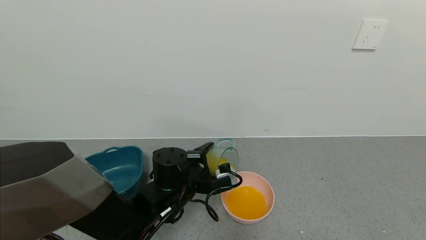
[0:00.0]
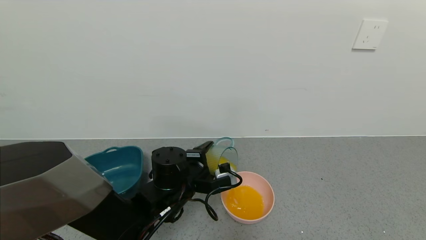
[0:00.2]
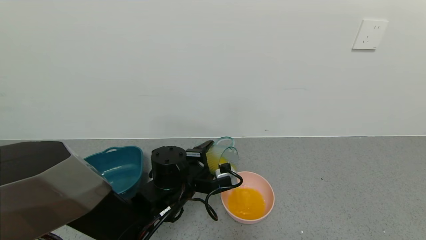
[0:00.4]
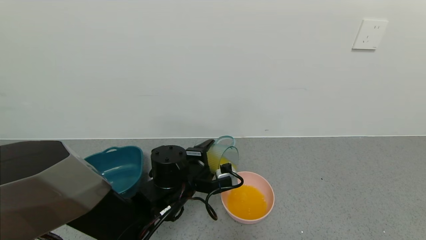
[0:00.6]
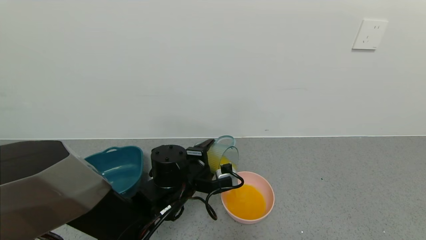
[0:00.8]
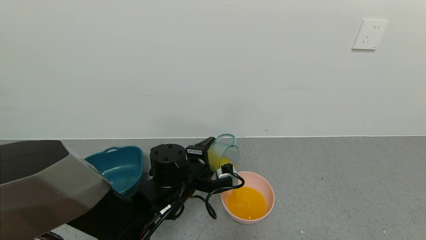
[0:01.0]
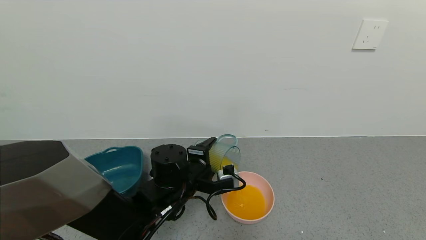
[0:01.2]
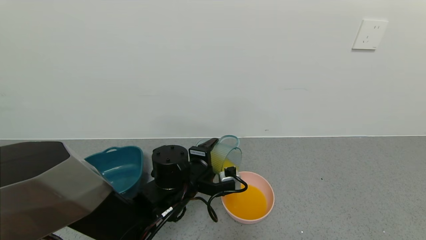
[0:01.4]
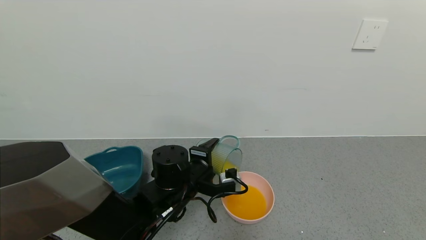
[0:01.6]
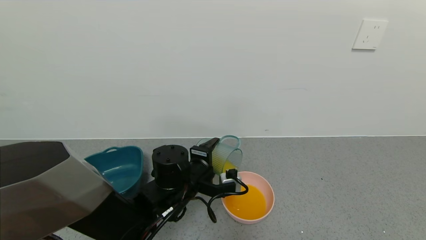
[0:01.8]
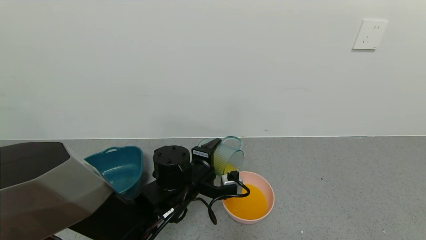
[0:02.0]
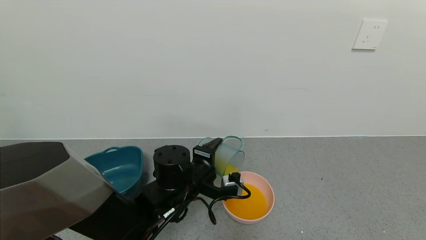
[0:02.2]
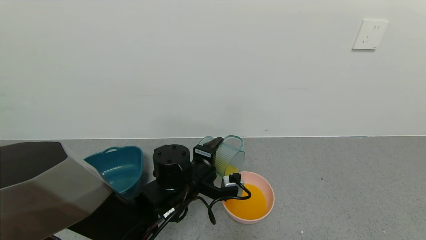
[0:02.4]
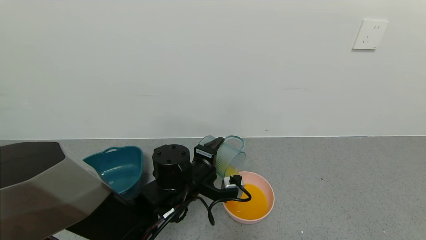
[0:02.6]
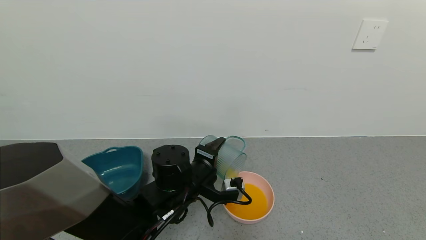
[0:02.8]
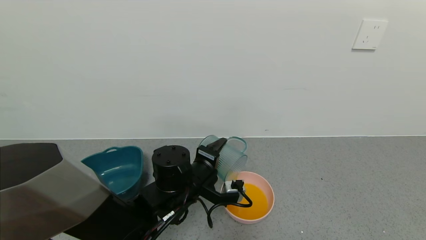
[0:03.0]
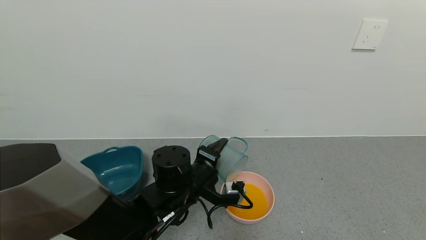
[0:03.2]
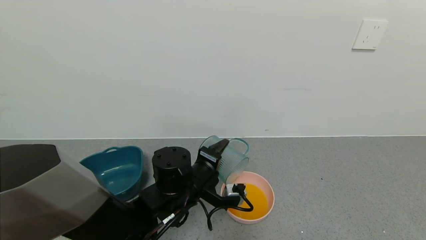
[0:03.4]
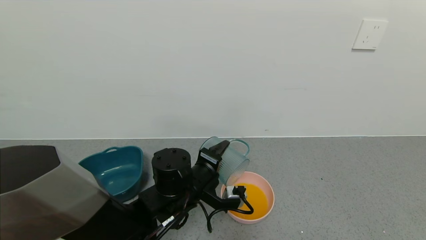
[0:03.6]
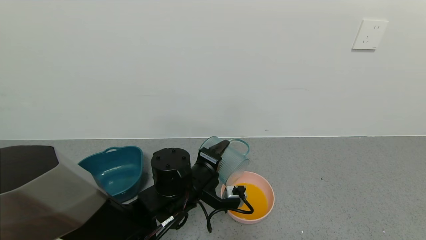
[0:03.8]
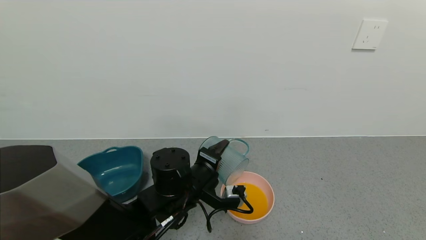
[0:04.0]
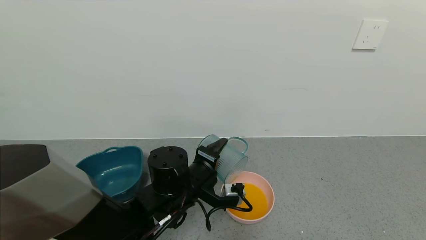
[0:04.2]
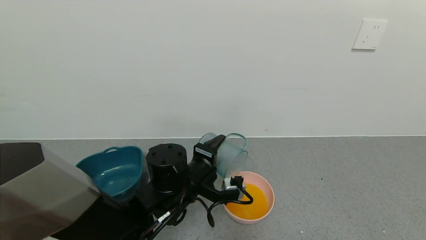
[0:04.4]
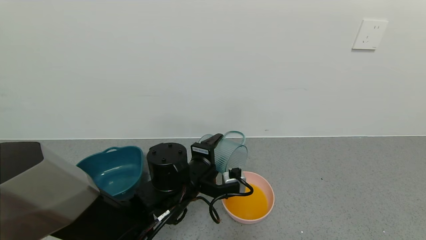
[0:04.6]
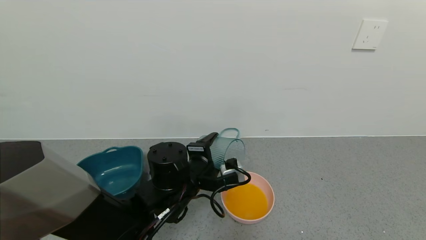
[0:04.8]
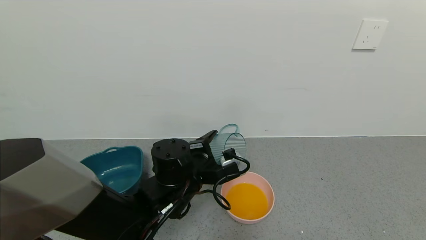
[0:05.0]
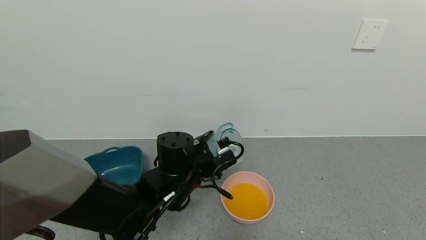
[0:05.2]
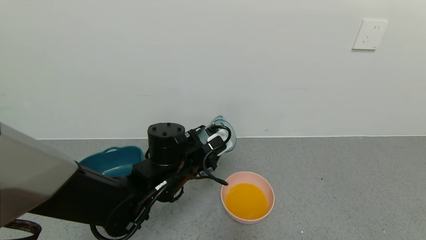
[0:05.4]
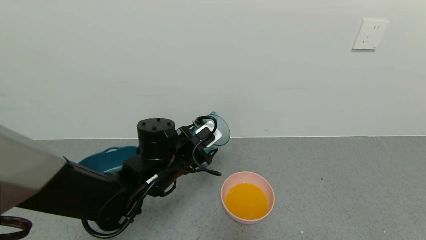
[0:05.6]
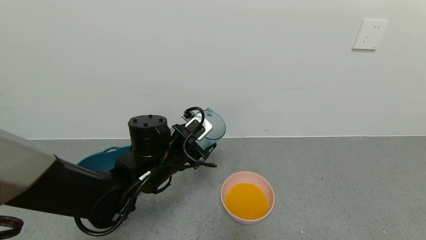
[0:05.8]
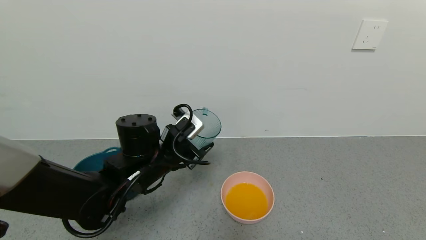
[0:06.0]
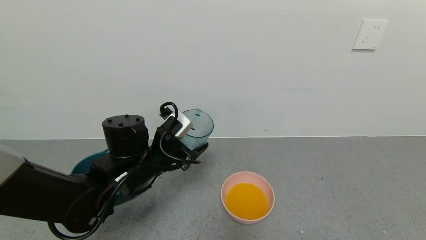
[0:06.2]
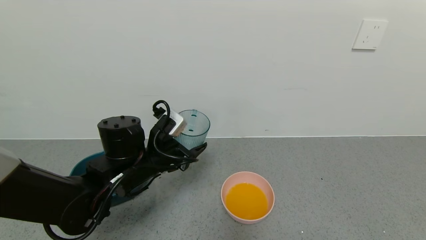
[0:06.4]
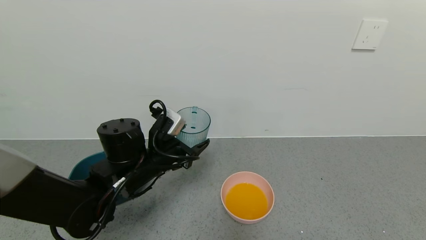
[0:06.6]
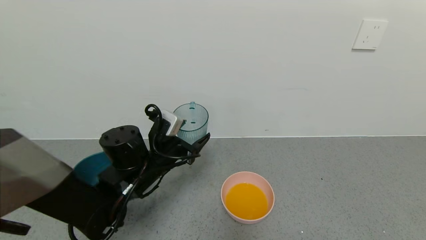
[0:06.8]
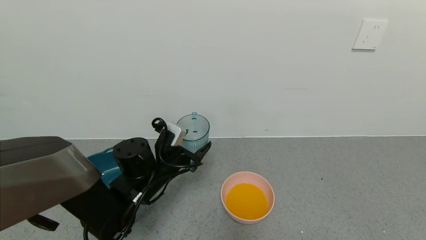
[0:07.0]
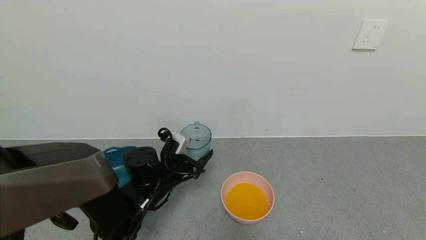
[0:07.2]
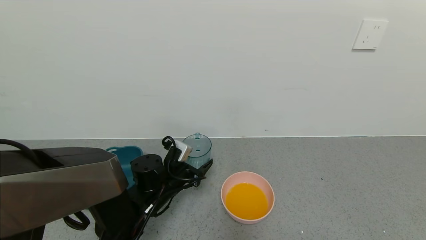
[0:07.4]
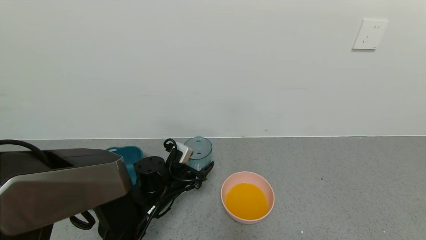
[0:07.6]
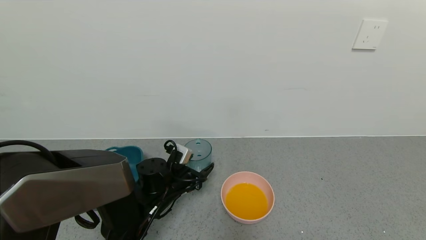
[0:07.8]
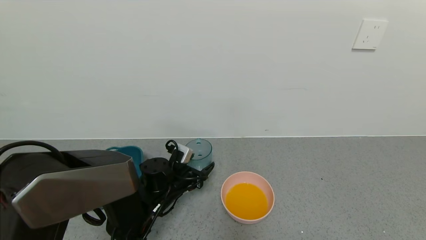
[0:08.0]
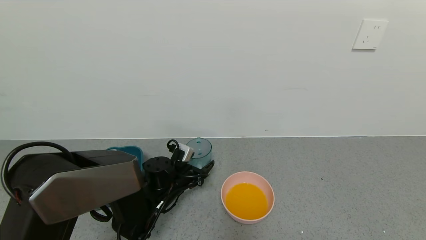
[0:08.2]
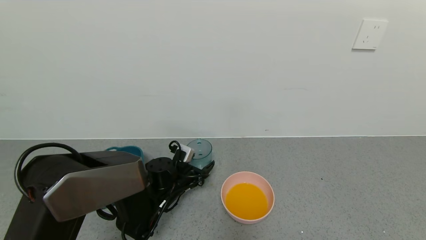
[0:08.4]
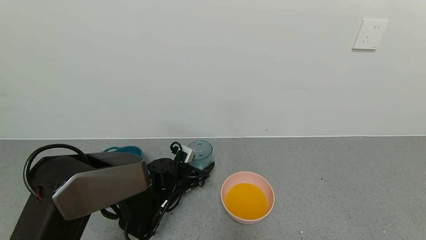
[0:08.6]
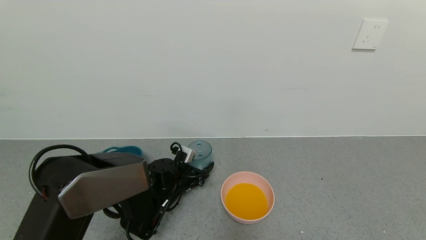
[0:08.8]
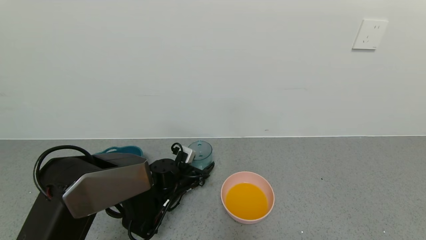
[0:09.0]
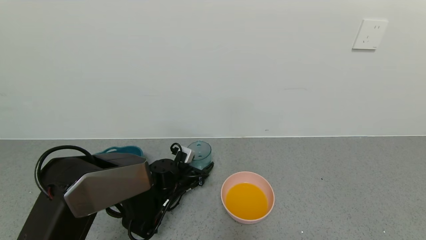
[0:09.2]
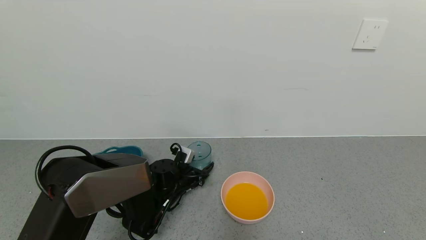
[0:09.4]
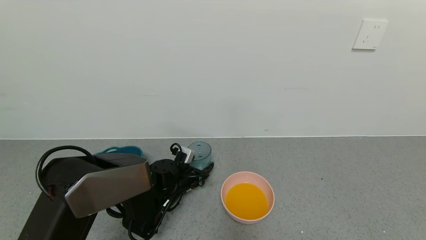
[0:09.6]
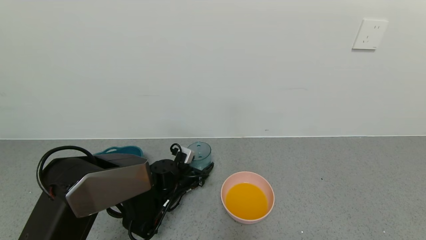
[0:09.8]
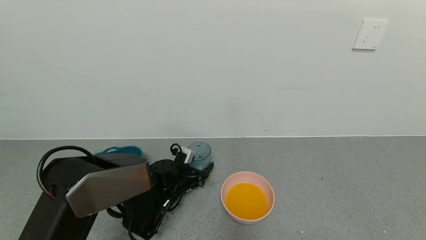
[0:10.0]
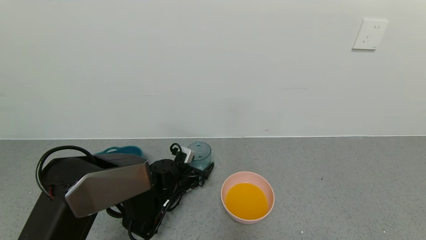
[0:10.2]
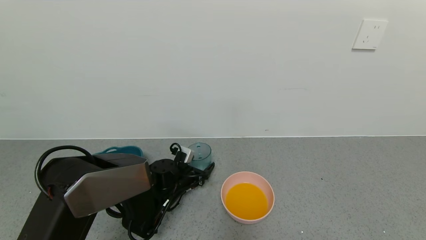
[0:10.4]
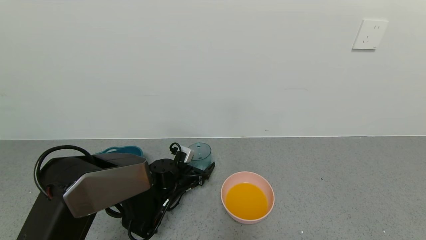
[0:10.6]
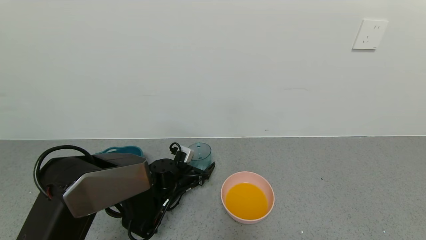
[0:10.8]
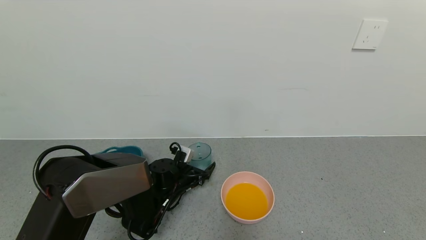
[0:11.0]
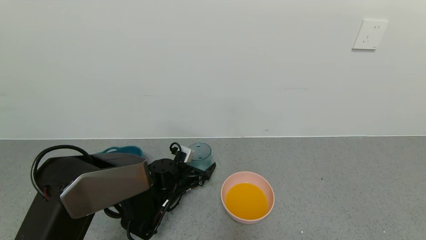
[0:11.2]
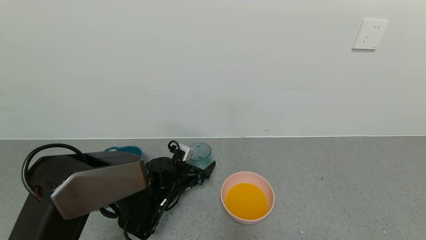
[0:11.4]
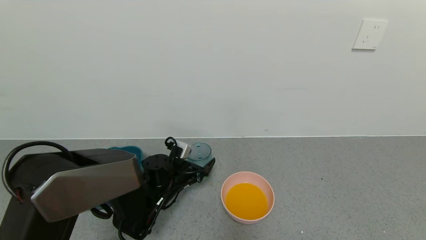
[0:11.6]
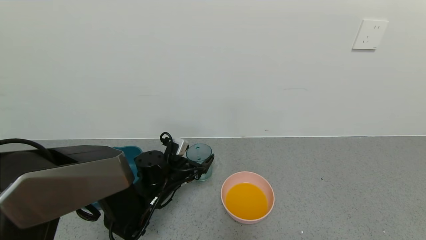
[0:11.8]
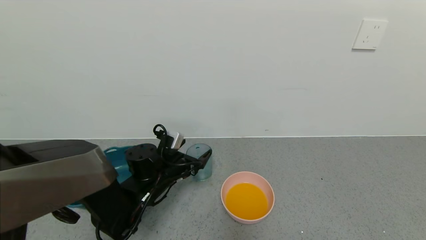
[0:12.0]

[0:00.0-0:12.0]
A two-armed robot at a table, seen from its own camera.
Task of the whole recording: use a gripper to pick up the cup and pour the liquid into a bowl or tray.
Step, 0:00.0 to 0:04.4: Pour the orange juice into the blue basin with left gripper.
Step, 0:04.6 to 0:11.0: Place blue cup with orange juice on the table with left gripper.
0:00.0 to 0:01.6: The grippers stay close to where they were, moving slightly.
0:01.6 to 0:03.0: The grippers move only a little.
0:03.0 to 0:04.4: Neither gripper changes place.
0:04.4 to 0:06.0: The left gripper goes some 5 cm to the left.
0:06.0 to 0:07.6: The left gripper is displaced downward by some 10 cm.
0:07.6 to 0:09.0: The left gripper shifts by roughly 5 cm.
0:10.4 to 0:12.0: The left gripper is displaced upward by some 10 cm, and opens up.

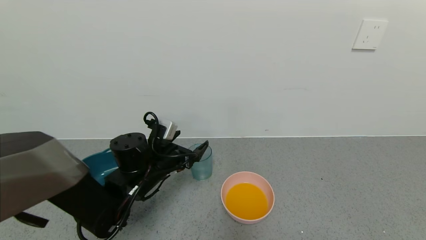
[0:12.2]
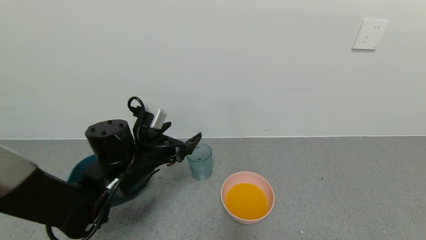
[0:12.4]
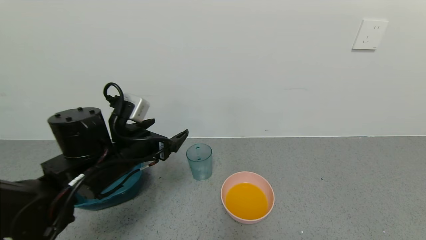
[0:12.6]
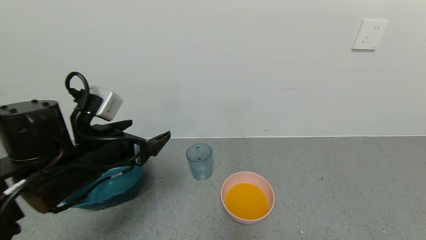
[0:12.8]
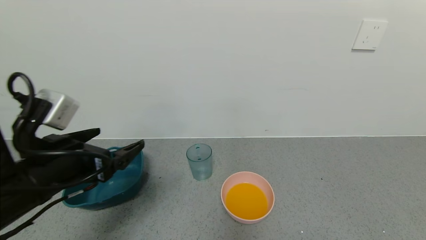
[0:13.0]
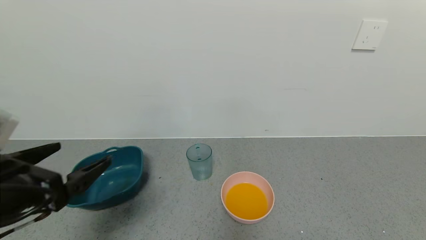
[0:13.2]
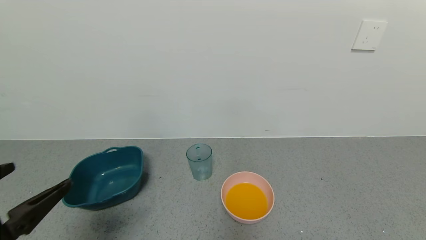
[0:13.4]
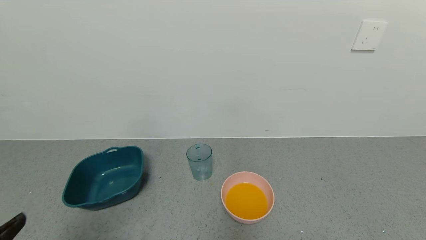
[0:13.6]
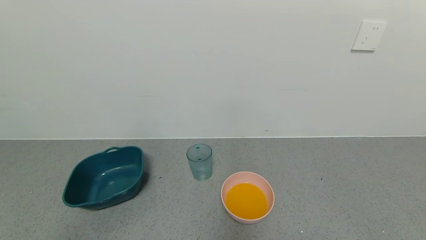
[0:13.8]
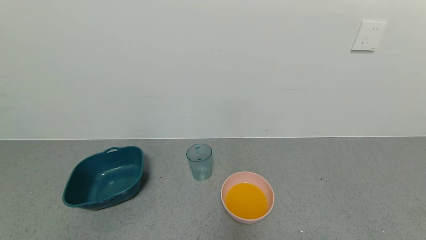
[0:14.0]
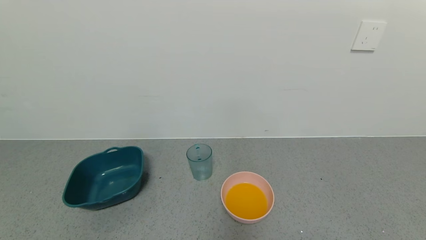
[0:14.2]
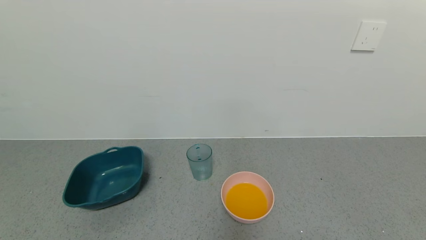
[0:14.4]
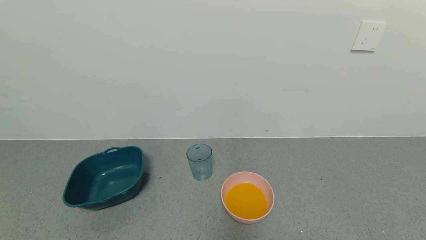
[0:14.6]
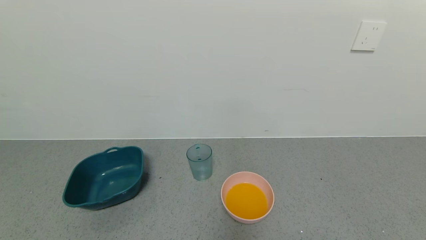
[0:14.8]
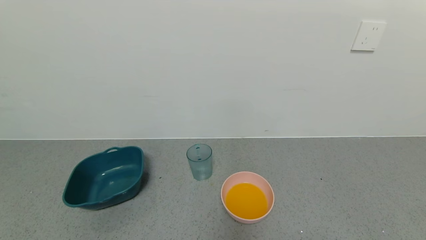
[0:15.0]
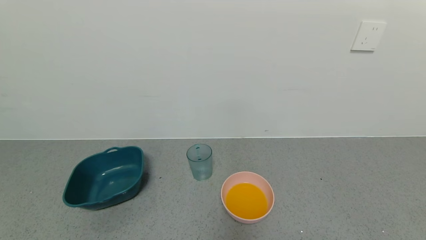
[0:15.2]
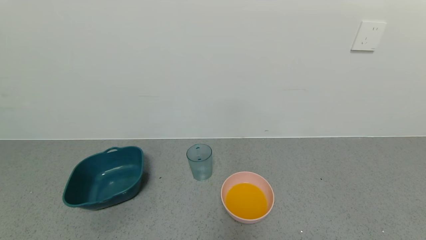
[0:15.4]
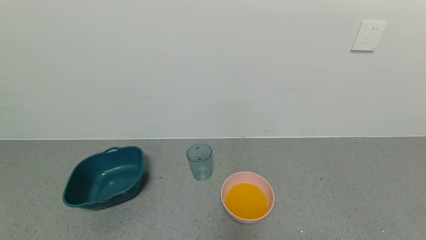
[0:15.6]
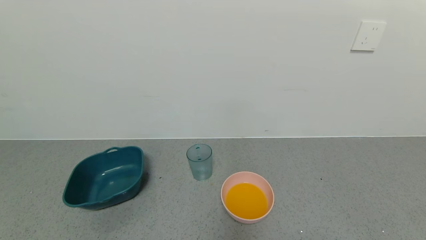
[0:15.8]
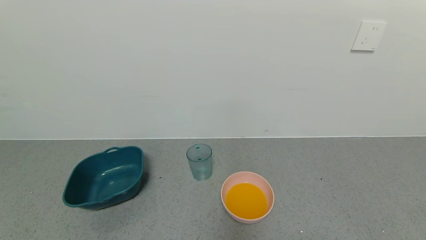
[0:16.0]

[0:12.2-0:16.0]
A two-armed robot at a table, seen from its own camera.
Task of the whole recording: use a gripper to pick up the cup and pour the liquid into a bowl or tray.
0:12.2 to 0:13.4: The left gripper shifts approximately 30 cm backward, to the left and upward.
0:13.4 to 0:14.8: The left gripper is displaced backward and downward by some 15 cm.
